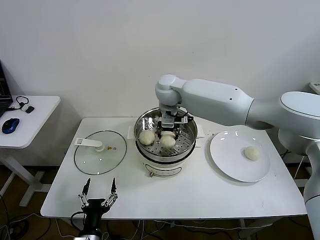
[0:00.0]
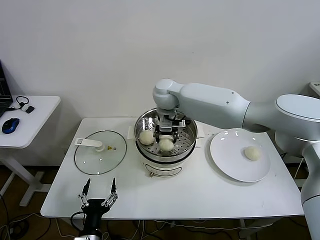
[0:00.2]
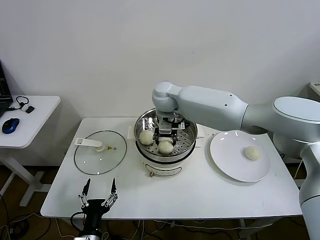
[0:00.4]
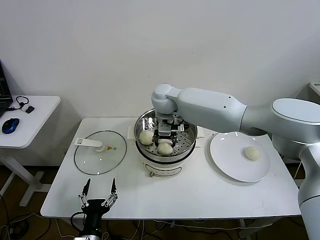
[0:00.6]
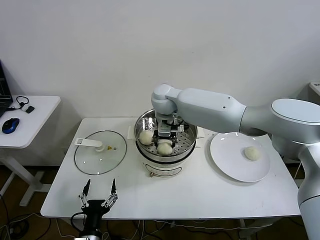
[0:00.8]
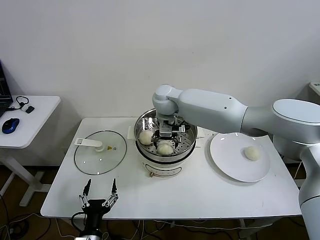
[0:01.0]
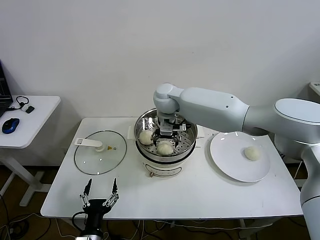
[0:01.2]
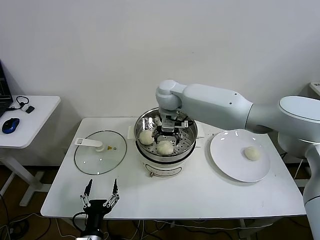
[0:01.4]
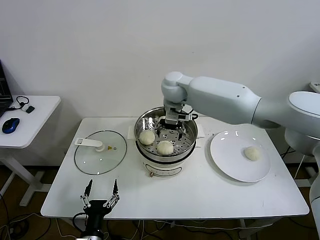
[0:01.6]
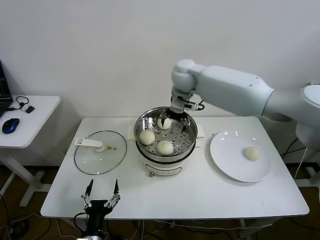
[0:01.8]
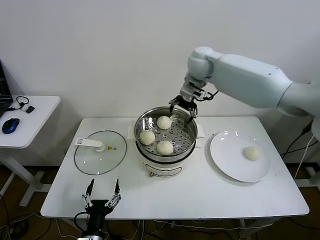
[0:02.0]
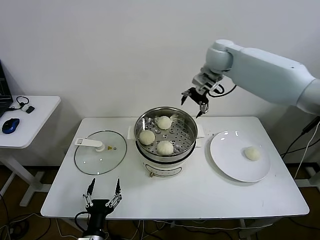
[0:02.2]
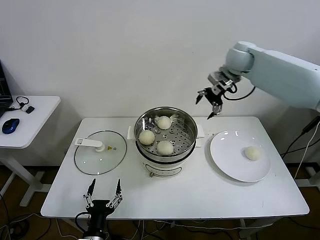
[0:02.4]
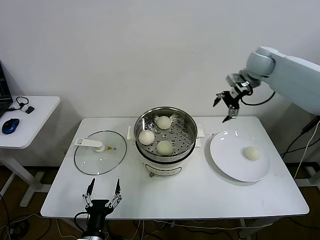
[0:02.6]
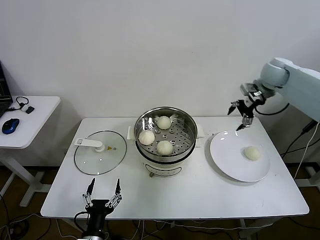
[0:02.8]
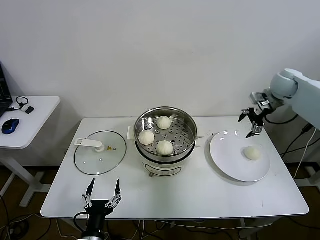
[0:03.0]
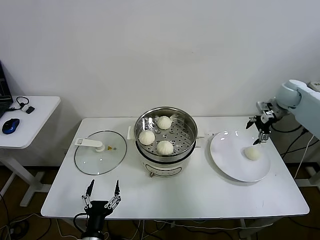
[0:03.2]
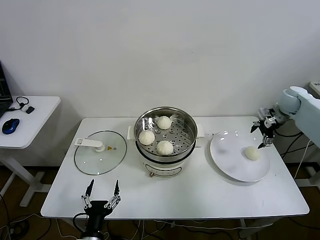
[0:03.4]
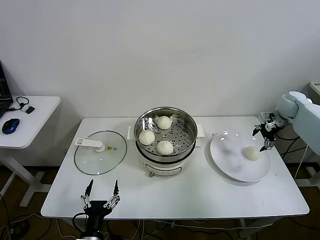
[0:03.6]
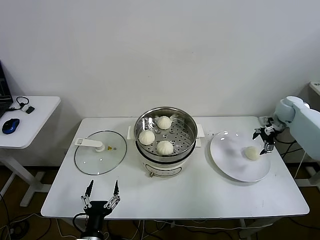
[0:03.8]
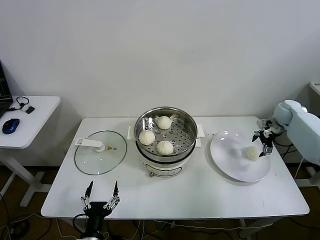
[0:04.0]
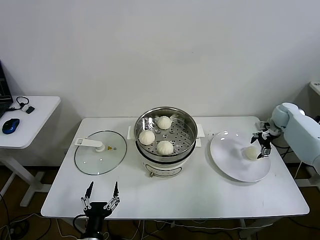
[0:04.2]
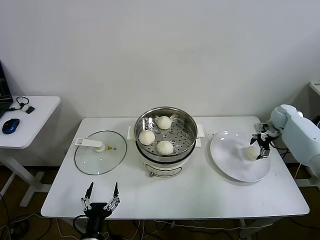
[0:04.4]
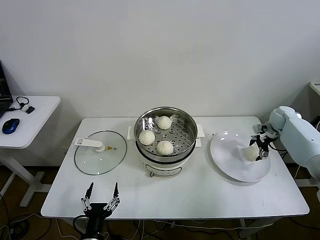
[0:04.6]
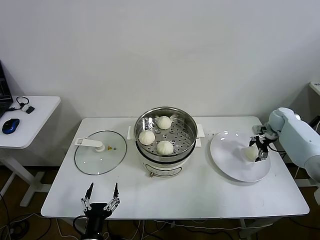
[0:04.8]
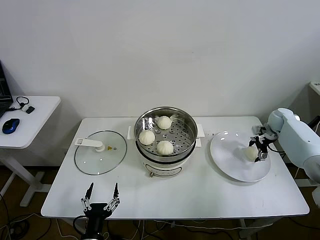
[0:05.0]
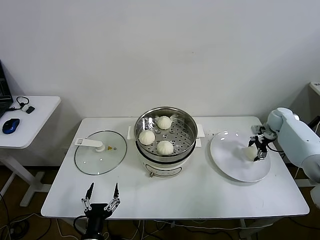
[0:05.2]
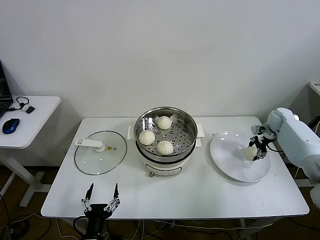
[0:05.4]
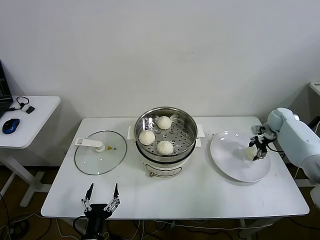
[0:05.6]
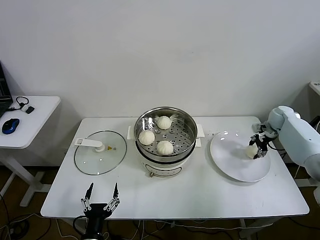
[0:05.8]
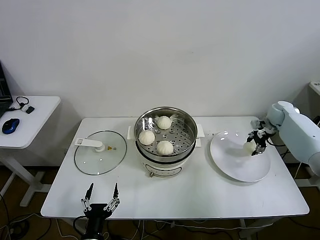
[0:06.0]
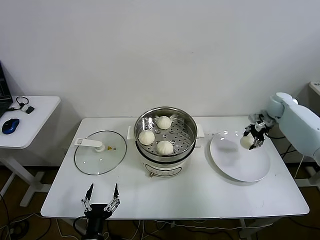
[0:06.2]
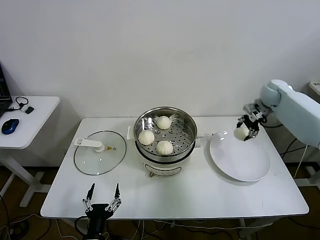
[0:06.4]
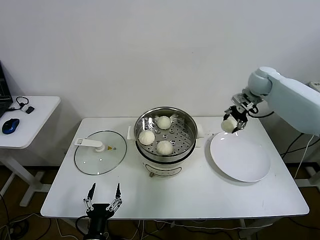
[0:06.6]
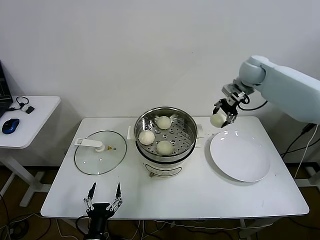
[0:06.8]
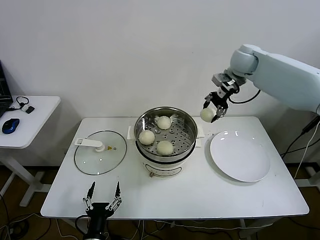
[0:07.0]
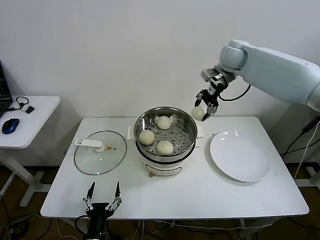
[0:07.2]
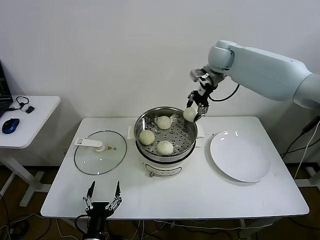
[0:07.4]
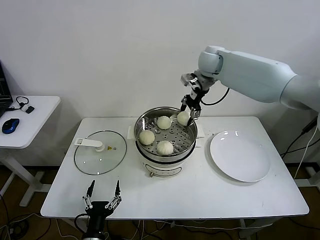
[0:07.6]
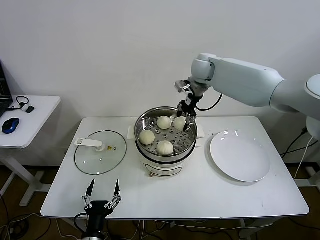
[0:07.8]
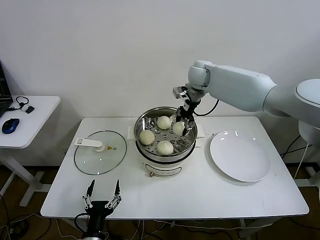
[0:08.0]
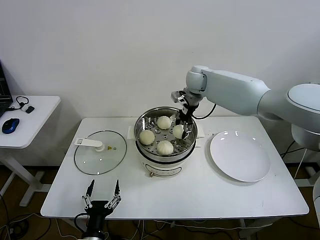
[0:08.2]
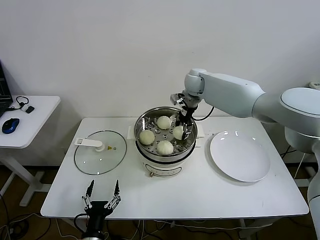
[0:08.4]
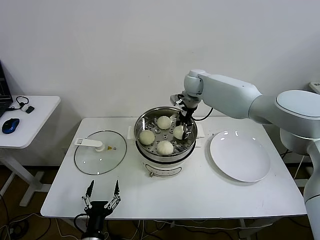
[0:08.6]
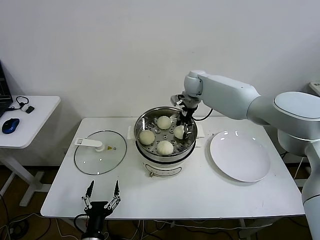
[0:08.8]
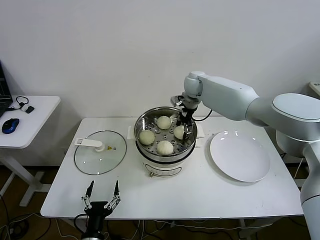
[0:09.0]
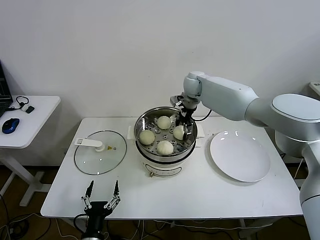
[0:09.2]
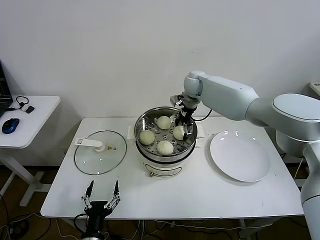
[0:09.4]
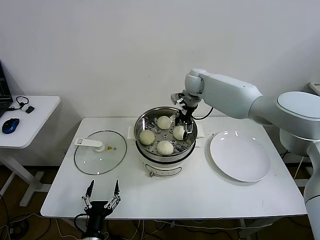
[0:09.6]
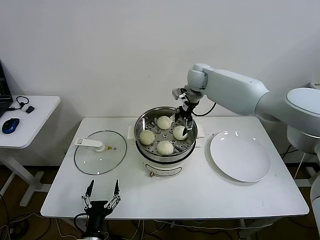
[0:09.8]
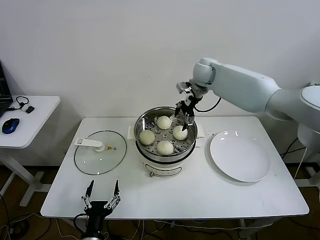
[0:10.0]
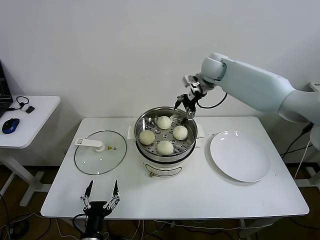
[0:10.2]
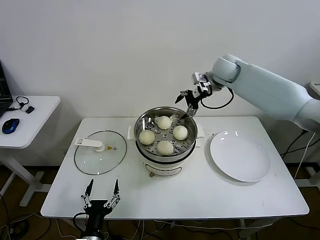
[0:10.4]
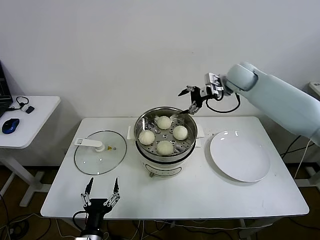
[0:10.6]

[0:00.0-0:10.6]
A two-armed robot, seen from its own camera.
Step, 0:01.6 to 0:05.8: Grasp the baozi in the plate with right gripper.
Step, 0:06.0 to 0:09.8: Place the baozi on the steamer with right gripper.
0:00.0 to 0:01.6: The right gripper opens up.
0:01.6 to 0:03.0: The right gripper goes approximately 40 cm to the right.
0:03.0 to 0:04.6: The right gripper goes about 20 cm downward and to the right.
0:04.6 to 0:06.0: The right gripper closes.
0:06.0 to 0:07.6: The right gripper moves to the left and upward, approximately 40 cm.
0:07.6 to 0:09.0: The right gripper travels downward by approximately 10 cm.
0:09.0 to 0:10.6: The right gripper moves to the right, upward and backward, roughly 15 cm, and opens up.

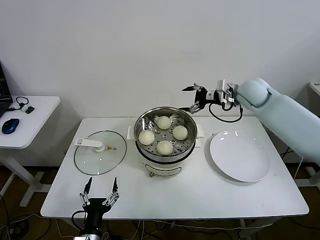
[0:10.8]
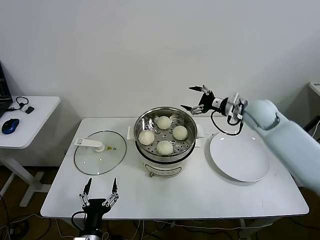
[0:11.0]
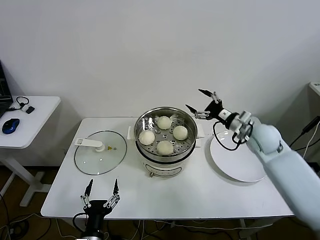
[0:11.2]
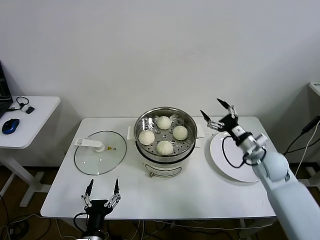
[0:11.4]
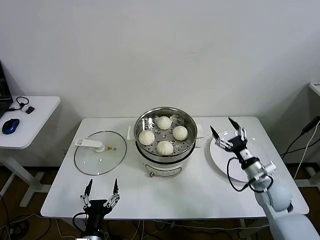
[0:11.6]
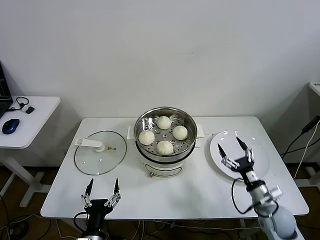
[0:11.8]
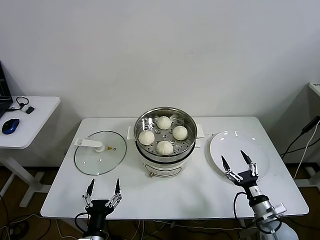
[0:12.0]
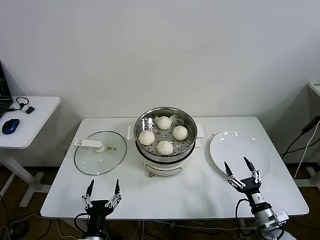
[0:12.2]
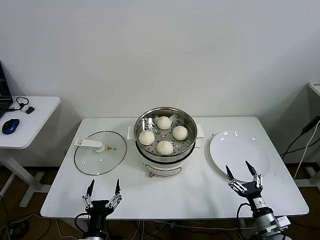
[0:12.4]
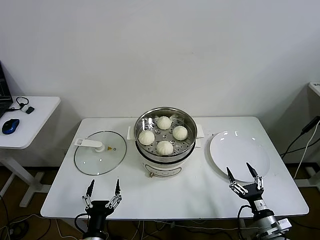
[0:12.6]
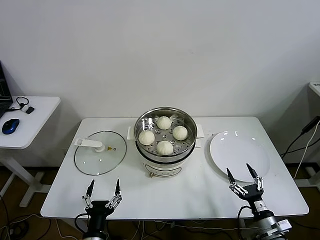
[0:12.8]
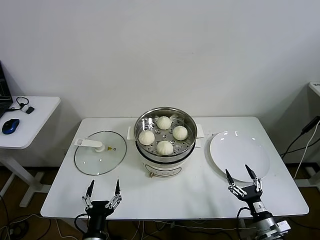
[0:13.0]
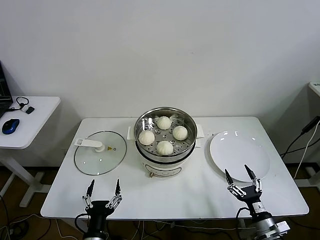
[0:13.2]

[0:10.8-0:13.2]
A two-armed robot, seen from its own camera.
0:10.8 to 0:12.0: The right gripper heads backward and downward, covering about 50 cm.
0:12.0 to 0:13.2: The right gripper is displaced backward by some 5 cm.

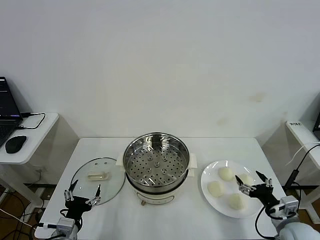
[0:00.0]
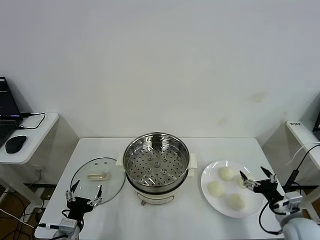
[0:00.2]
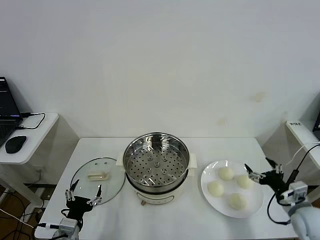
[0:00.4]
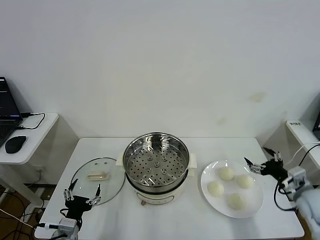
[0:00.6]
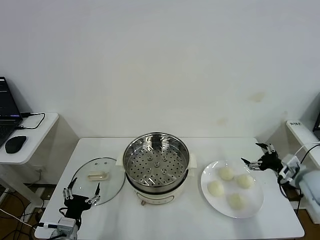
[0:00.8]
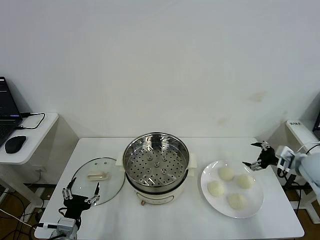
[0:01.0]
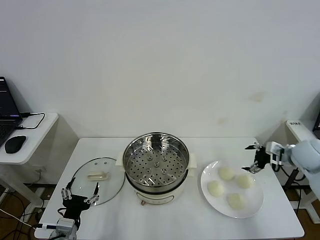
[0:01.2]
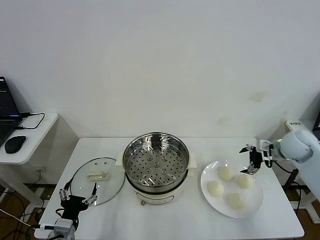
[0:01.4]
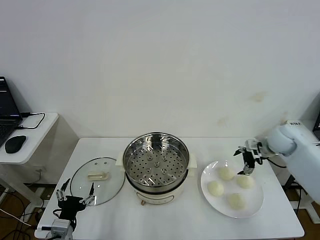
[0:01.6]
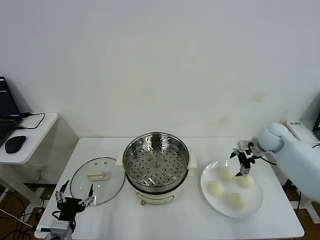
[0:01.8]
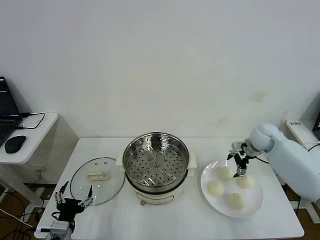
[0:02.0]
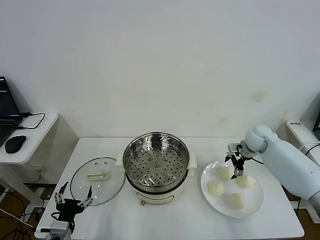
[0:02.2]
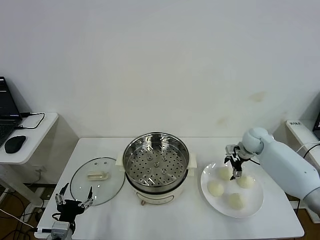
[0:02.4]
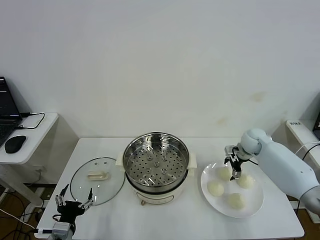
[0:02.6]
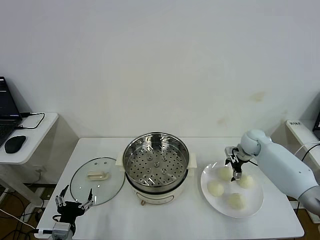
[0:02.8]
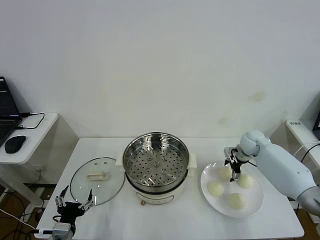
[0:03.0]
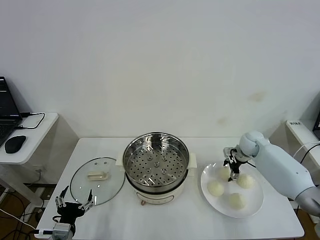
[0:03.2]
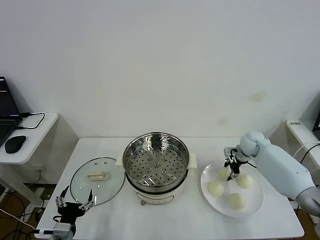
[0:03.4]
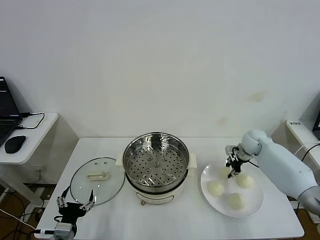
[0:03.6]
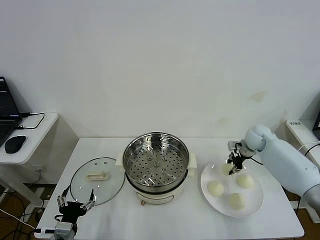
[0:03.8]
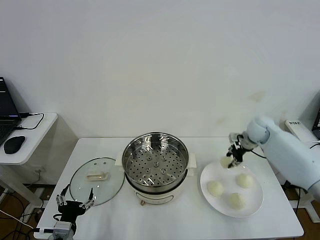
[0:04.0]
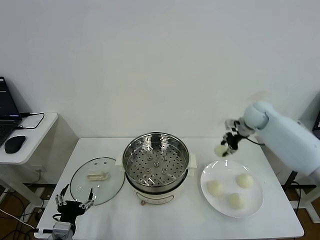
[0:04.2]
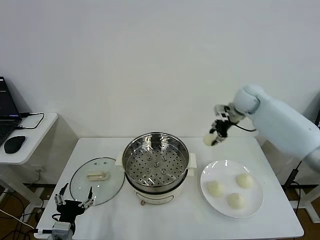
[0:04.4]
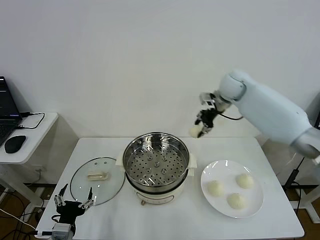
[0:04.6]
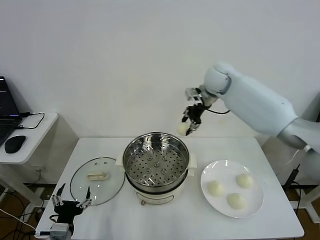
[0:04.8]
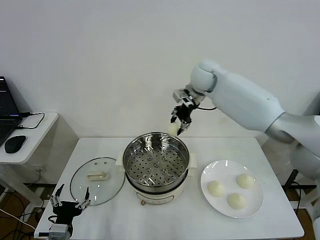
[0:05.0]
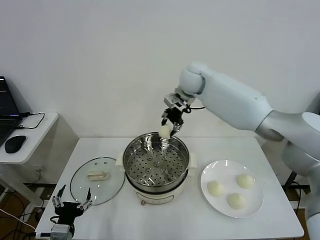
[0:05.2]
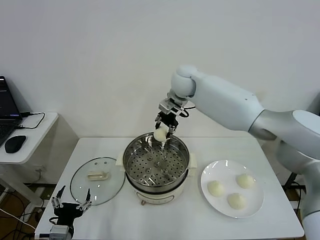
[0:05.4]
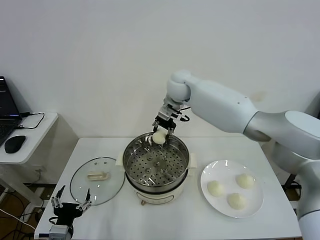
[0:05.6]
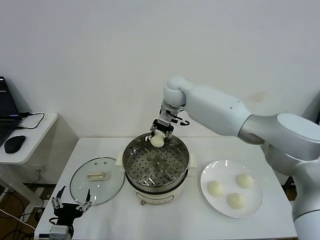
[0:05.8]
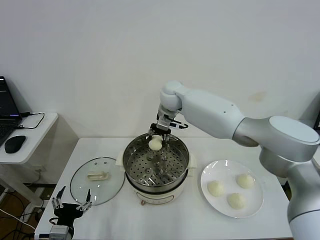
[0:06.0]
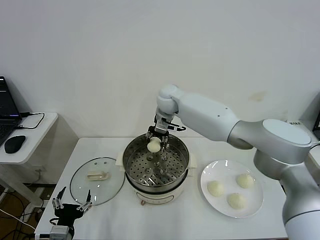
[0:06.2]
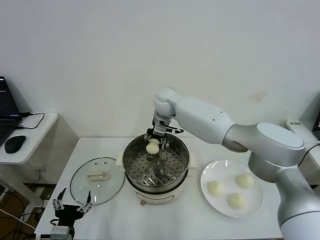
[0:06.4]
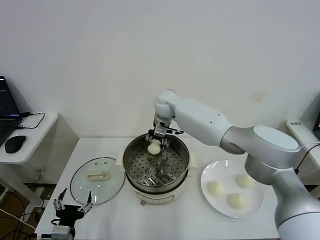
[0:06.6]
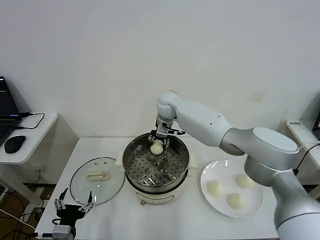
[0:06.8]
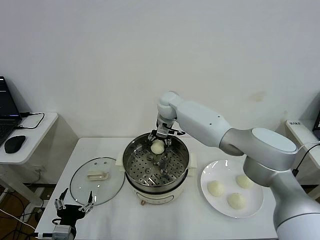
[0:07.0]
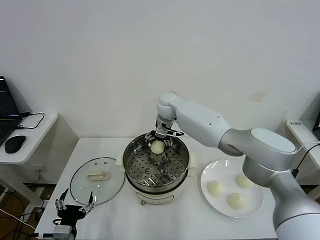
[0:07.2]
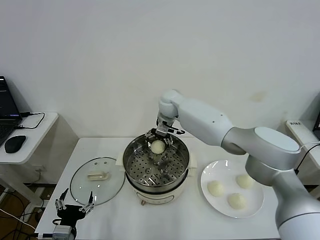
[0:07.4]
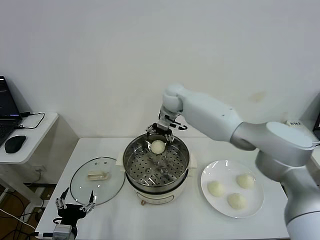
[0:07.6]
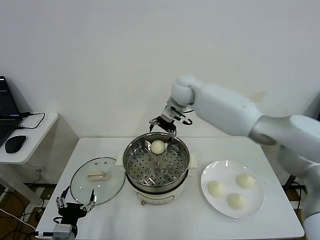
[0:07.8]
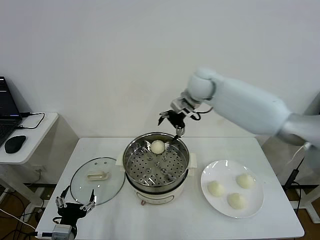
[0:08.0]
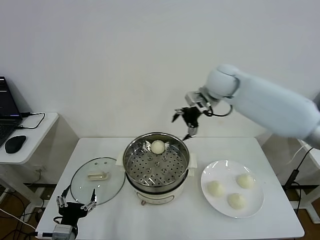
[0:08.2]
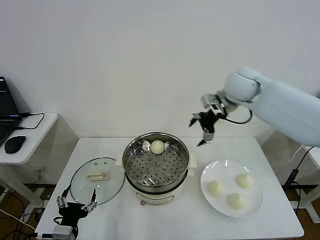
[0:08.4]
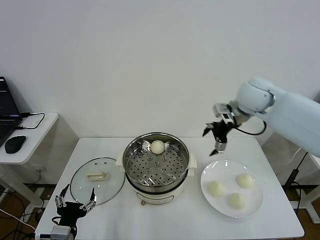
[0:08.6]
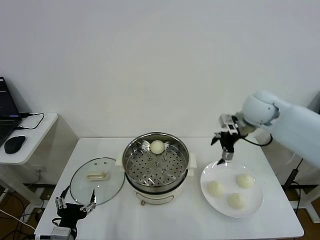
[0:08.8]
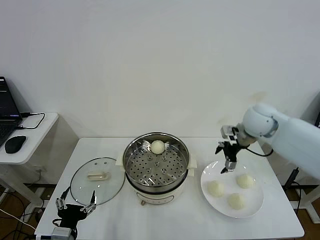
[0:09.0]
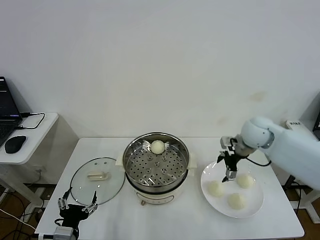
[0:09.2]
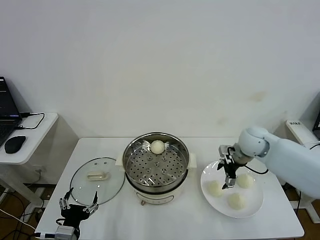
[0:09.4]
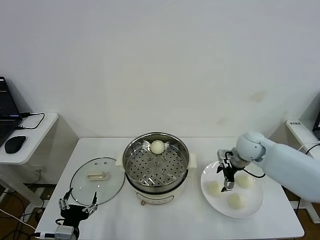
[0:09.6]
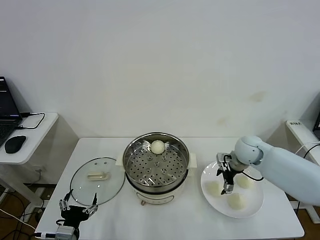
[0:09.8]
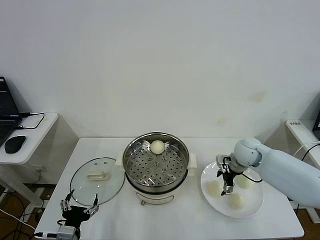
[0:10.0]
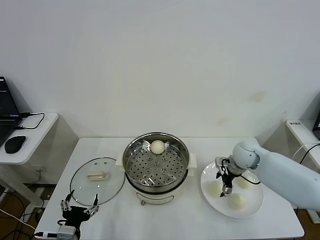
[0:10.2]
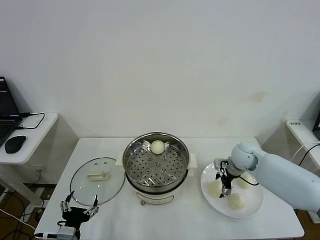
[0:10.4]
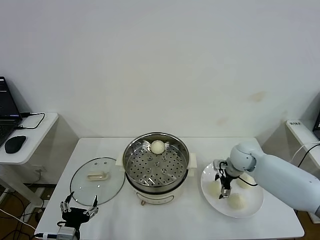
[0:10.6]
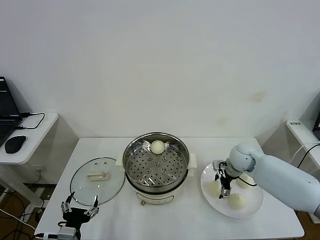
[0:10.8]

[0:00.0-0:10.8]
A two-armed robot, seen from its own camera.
Step, 0:00.0 to 0:03.2: Grasp the baozi in the plate with right gripper.
Step, 0:03.4 to 0:07.0: Place the baozi on the steamer with right gripper.
0:01.6 to 0:03.0: The right gripper travels downward by roughly 10 cm.
0:03.0 to 0:04.6: The right gripper goes some 30 cm upward and to the left, and closes.
0:04.6 to 0:06.2: The right gripper is displaced to the left and downward by some 20 cm.
0:06.2 to 0:07.8: The right gripper heads to the right and upward, covering about 10 cm, and opens.
0:07.8 to 0:09.2: The right gripper shifts approximately 25 cm to the right, downward and backward.
0:09.2 to 0:10.8: The right gripper is displaced downward by about 10 cm.
